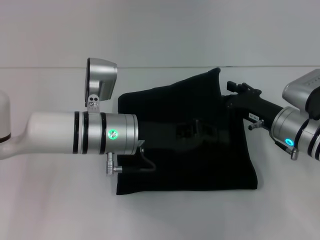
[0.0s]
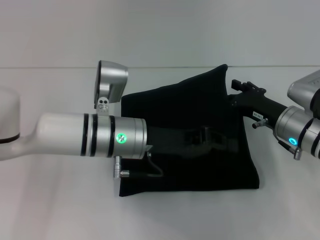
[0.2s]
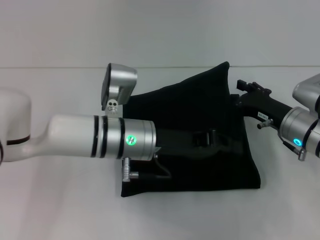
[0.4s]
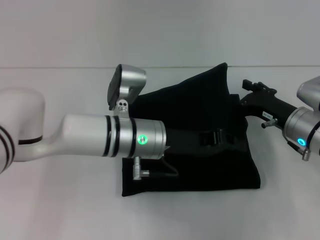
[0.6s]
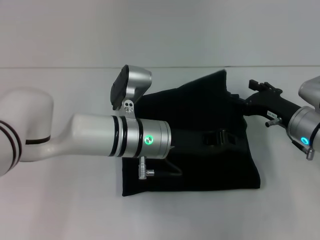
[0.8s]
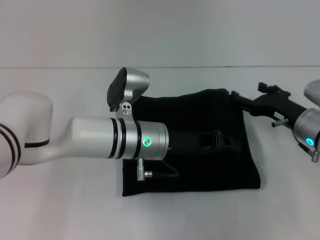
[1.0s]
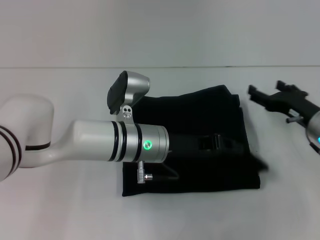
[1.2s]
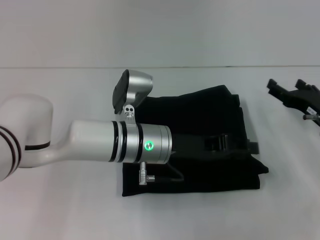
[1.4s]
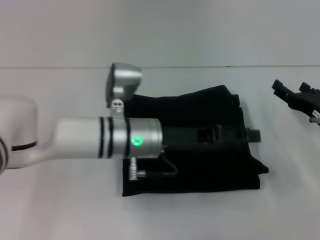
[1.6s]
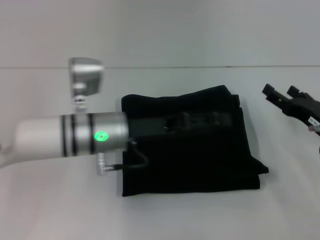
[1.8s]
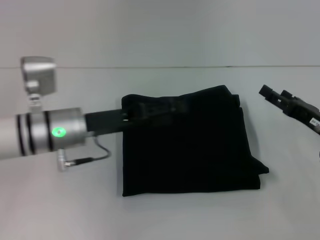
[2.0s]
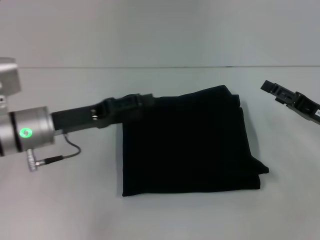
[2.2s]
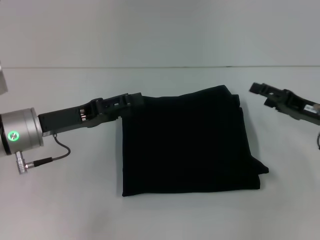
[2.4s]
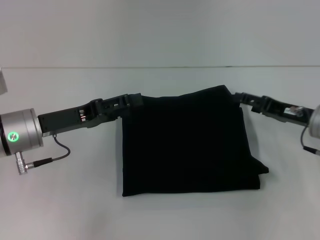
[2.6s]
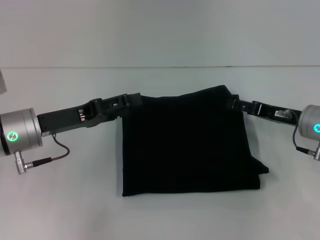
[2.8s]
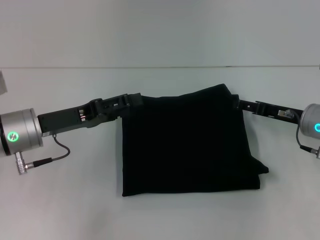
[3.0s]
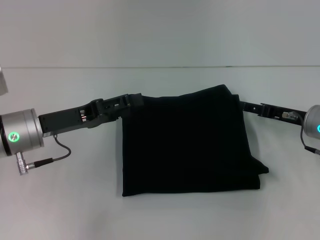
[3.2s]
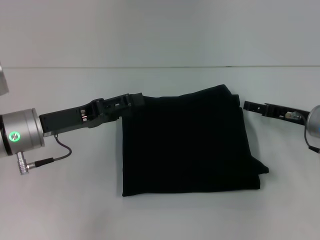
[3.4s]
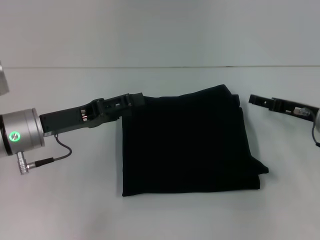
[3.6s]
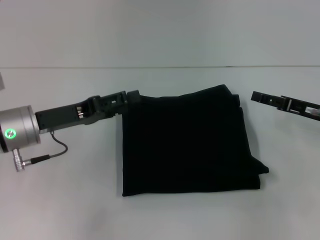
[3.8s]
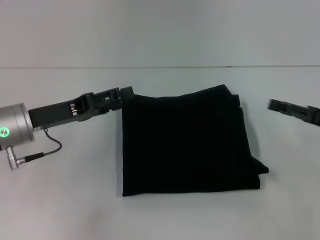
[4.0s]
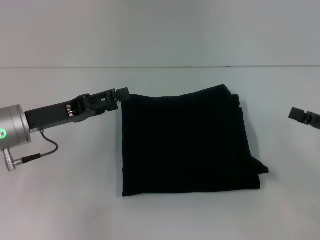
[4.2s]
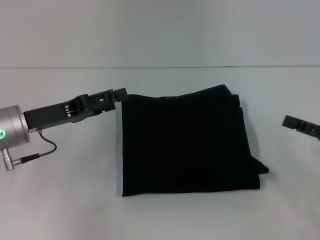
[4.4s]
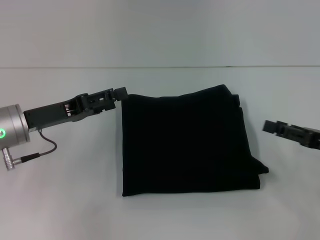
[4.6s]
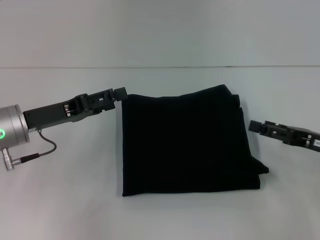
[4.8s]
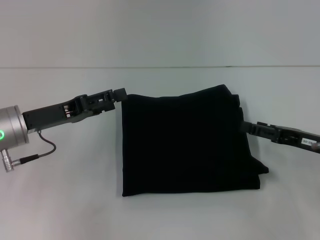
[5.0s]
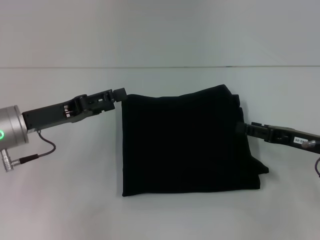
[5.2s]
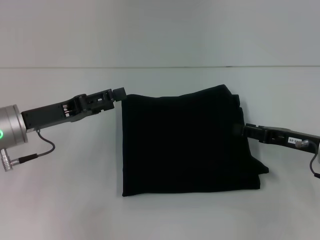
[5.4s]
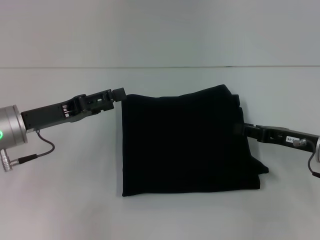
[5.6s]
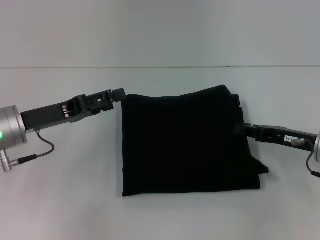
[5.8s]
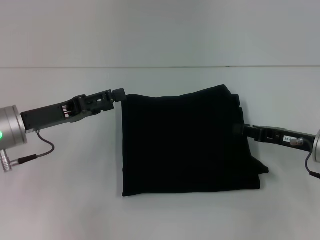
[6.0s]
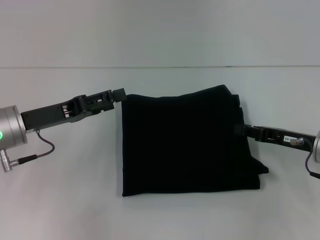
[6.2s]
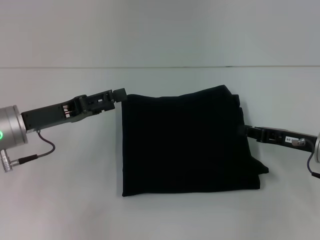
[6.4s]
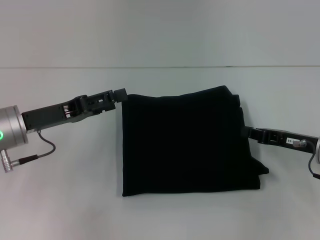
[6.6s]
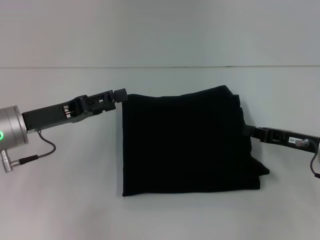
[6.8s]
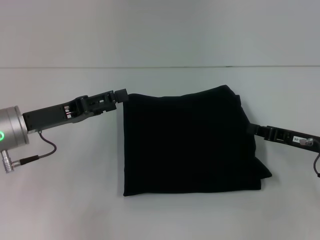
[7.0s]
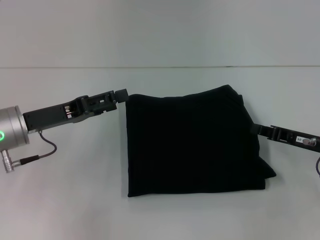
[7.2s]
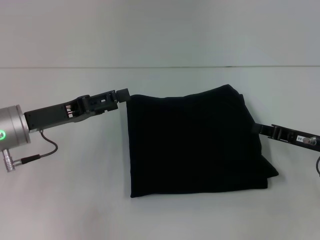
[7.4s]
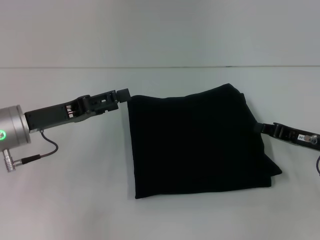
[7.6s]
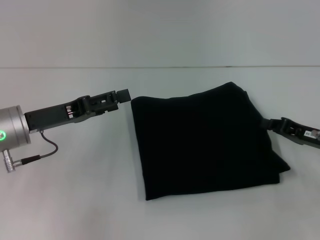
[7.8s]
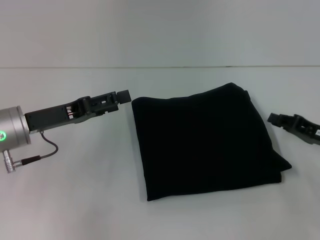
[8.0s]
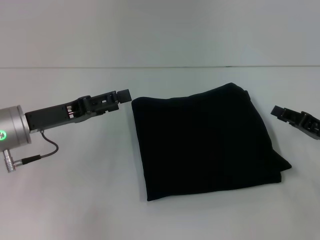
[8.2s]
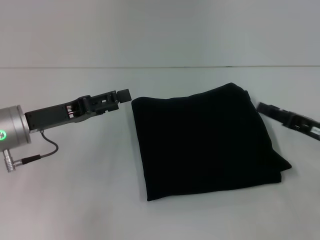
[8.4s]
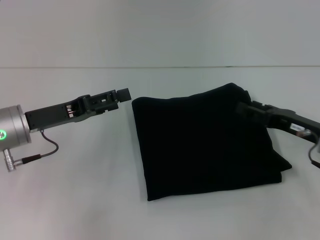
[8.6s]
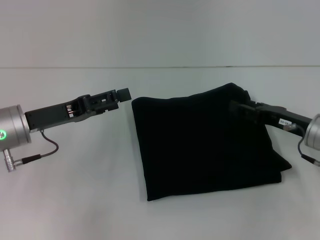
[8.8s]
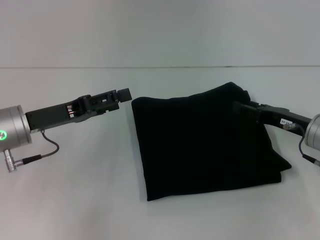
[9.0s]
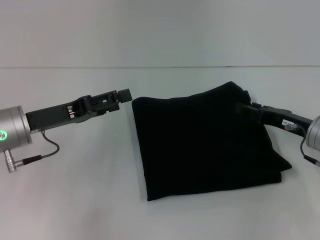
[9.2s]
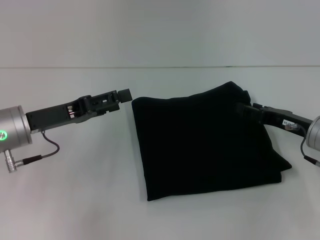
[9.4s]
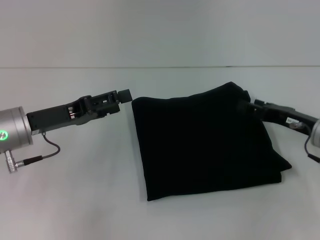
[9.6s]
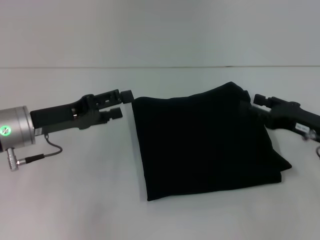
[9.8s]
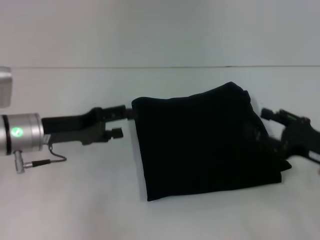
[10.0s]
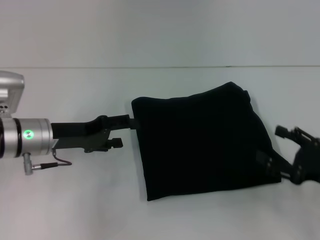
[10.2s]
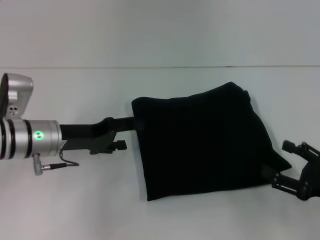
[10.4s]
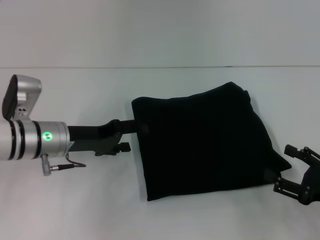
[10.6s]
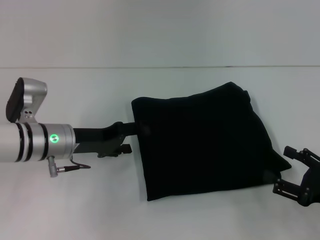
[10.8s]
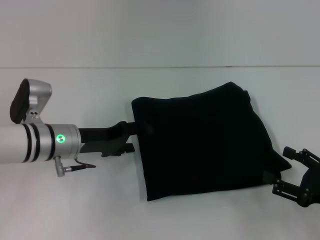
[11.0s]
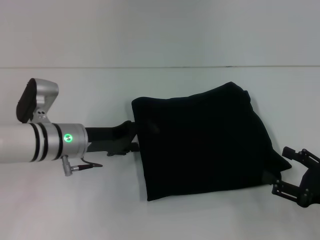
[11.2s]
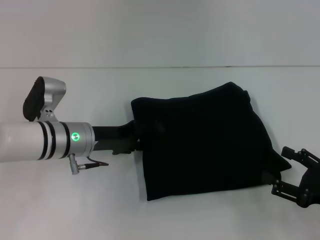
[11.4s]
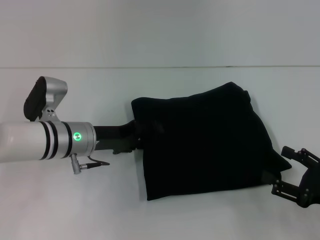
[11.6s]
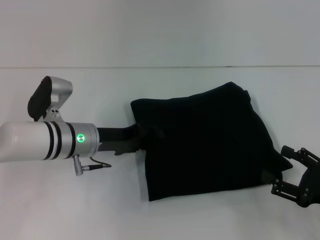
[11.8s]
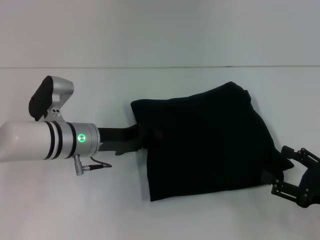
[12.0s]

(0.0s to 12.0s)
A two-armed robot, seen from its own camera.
0.0s - 1.6s: The right gripper goes roughly 10 cm to the right; the left gripper opens up.
1.6s - 3.0s: The right gripper shifts by approximately 5 cm. Meanwhile the left gripper is displaced to the left by roughly 15 cm, and opens.
3.0s - 4.4s: The right gripper shifts approximately 15 cm backward and to the right.
4.4s - 6.0s: The right gripper travels to the left and forward by about 10 cm, and closes.
6.0s - 7.6s: The grippers stay close to where they were, moving slightly.
7.6s - 9.0s: The right gripper opens its fingers.
9.0s - 10.4s: The right gripper is displaced backward and to the right by approximately 15 cm.
10.4s - 12.0s: The left gripper heads to the right, covering approximately 5 cm.

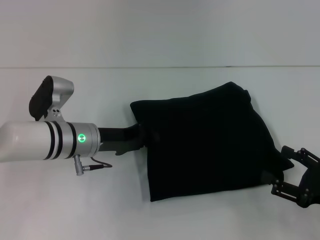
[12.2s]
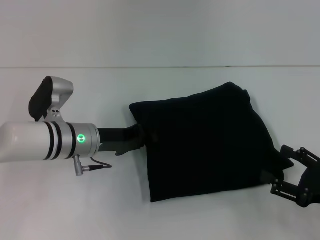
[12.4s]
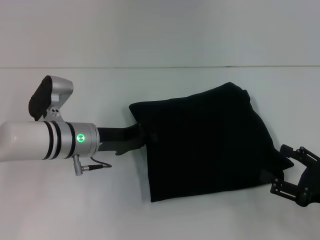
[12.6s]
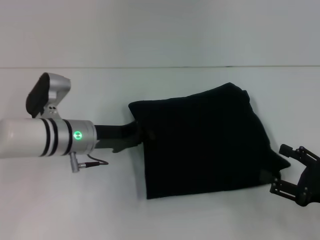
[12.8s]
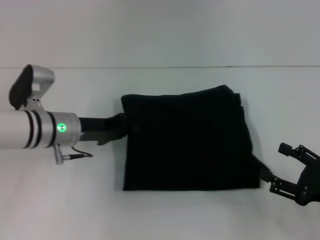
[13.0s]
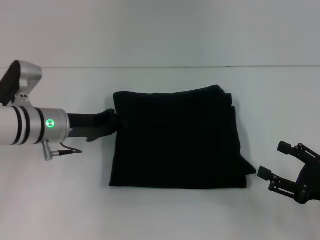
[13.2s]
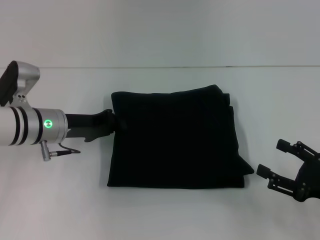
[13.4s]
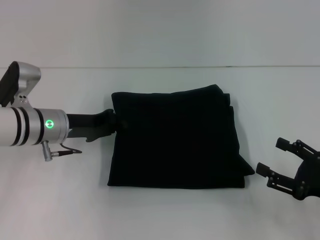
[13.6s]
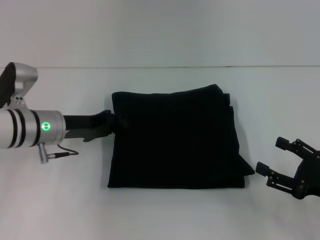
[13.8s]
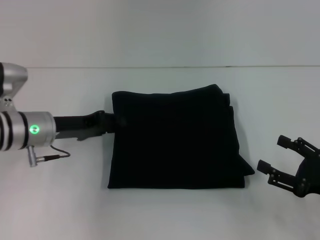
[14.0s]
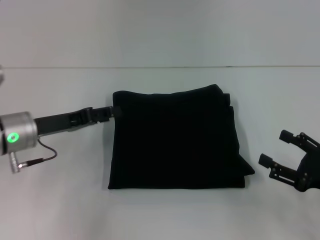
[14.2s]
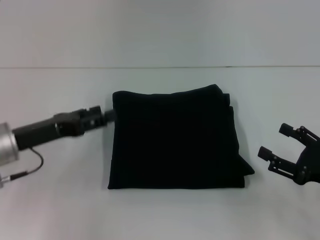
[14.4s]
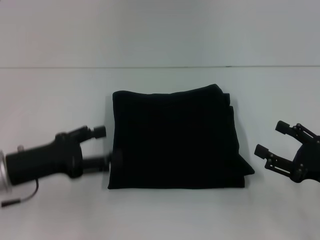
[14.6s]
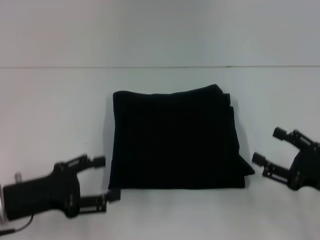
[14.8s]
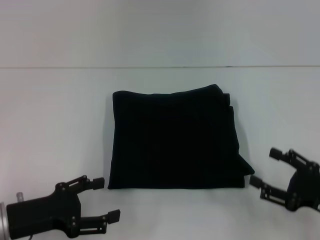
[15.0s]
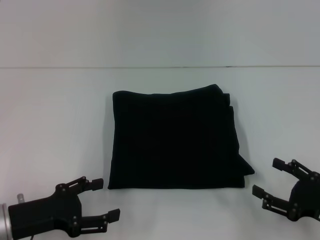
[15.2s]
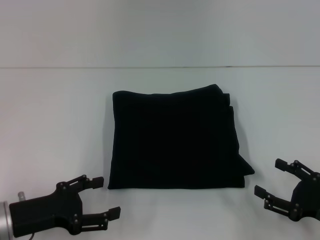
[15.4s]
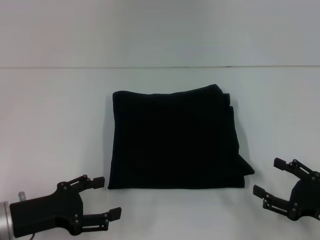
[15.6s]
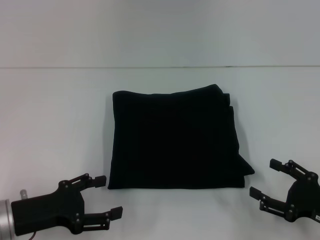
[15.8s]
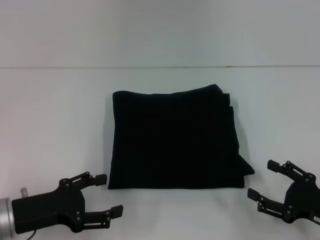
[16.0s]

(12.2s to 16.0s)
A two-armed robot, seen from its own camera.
12.2s - 13.4s: The left gripper is displaced to the left by approximately 5 cm.
13.4s - 14.8s: The left gripper is displaced backward by approximately 15 cm, and opens up.
14.8s - 16.0s: The grippers stay close to where they were, moving slightly.
